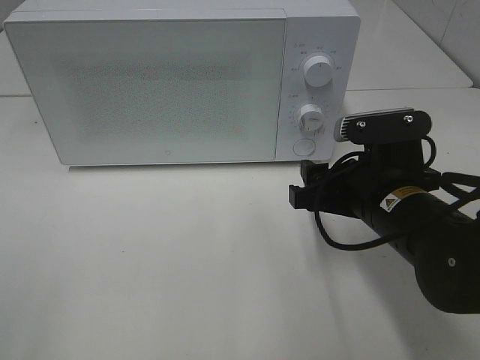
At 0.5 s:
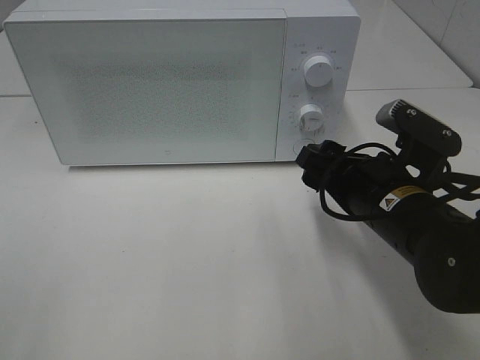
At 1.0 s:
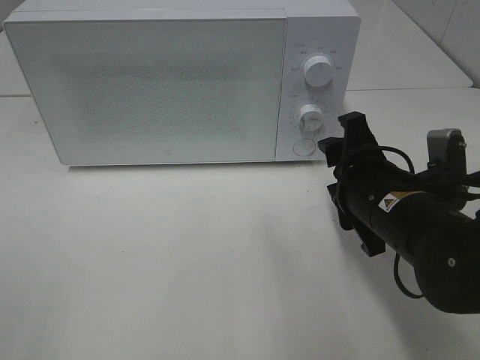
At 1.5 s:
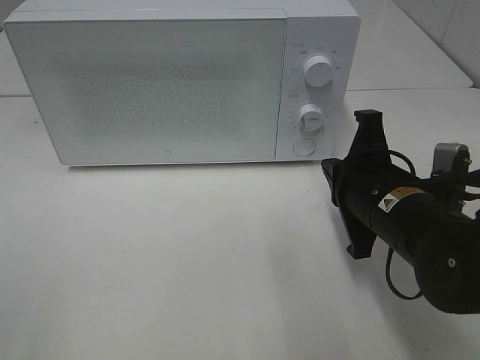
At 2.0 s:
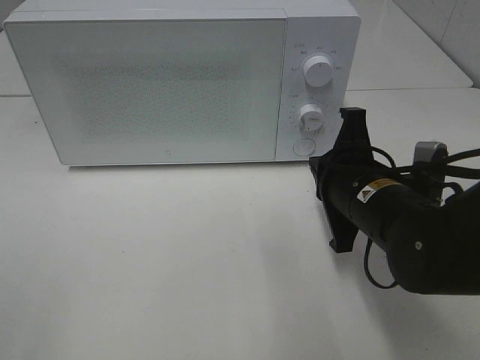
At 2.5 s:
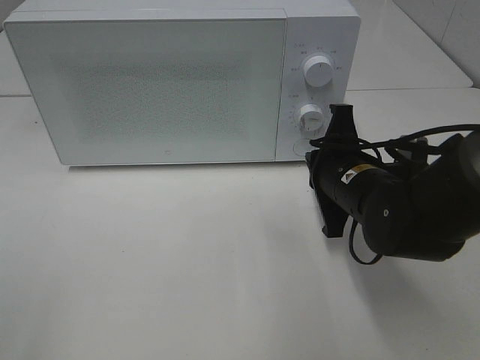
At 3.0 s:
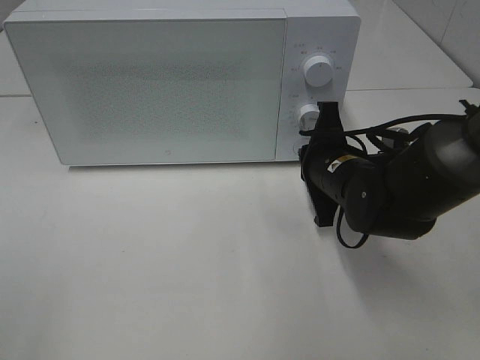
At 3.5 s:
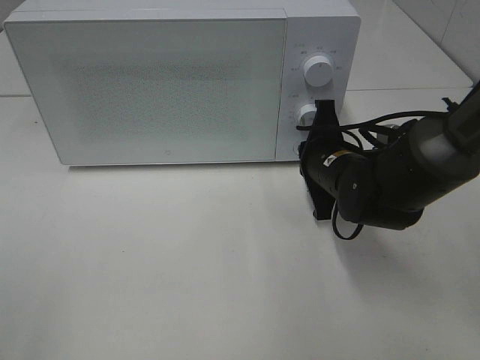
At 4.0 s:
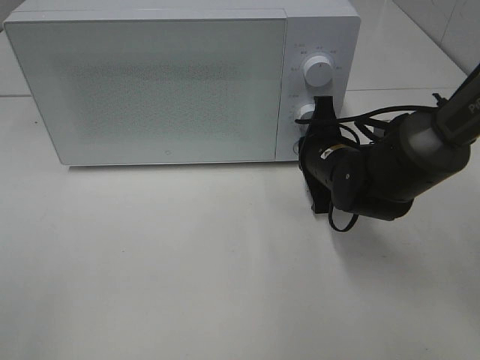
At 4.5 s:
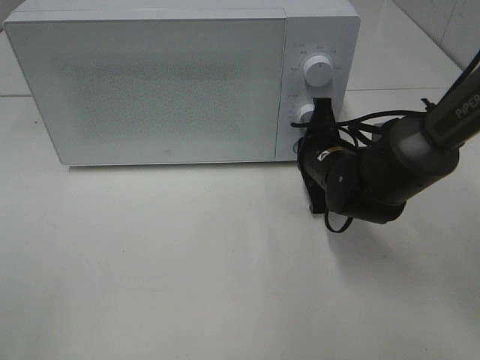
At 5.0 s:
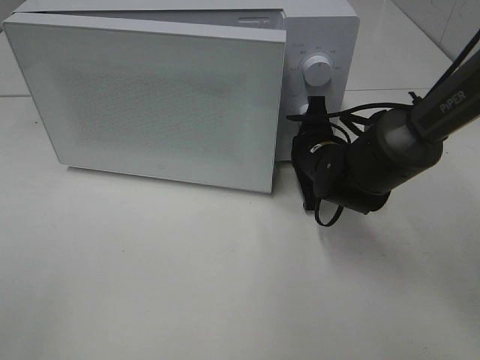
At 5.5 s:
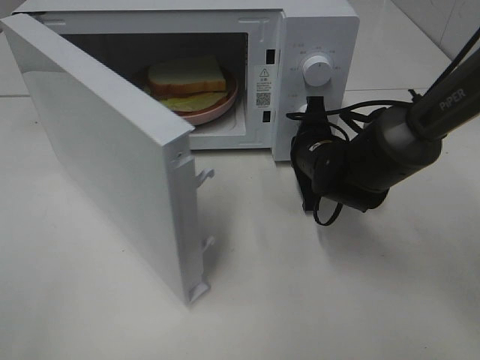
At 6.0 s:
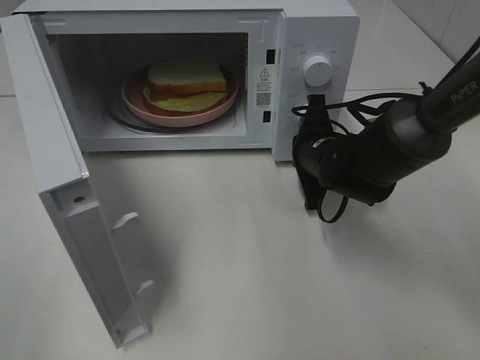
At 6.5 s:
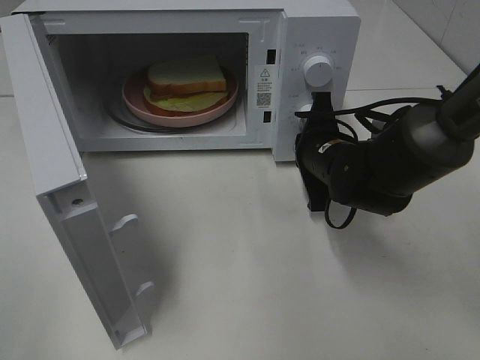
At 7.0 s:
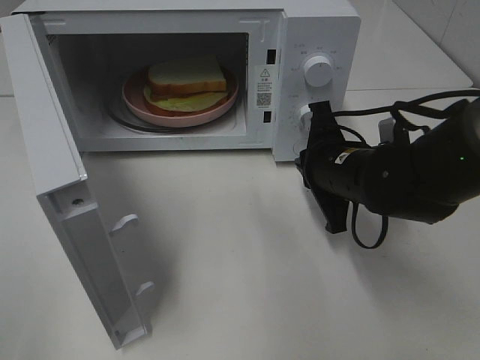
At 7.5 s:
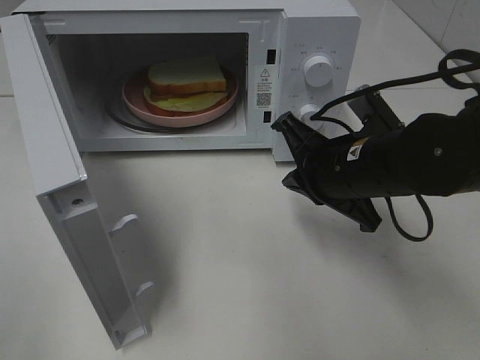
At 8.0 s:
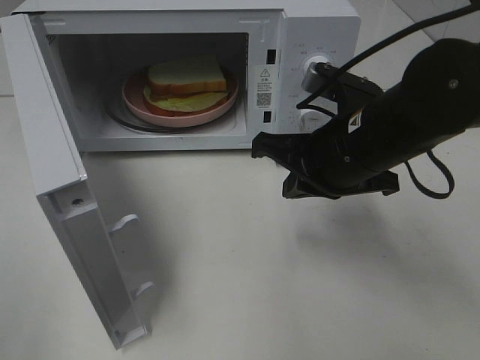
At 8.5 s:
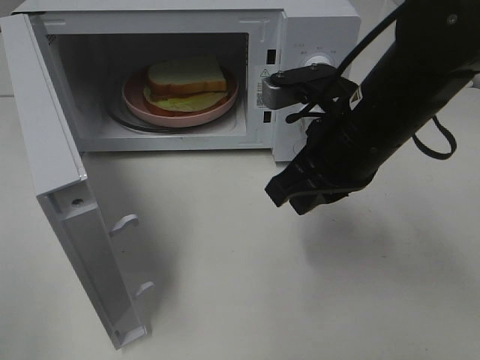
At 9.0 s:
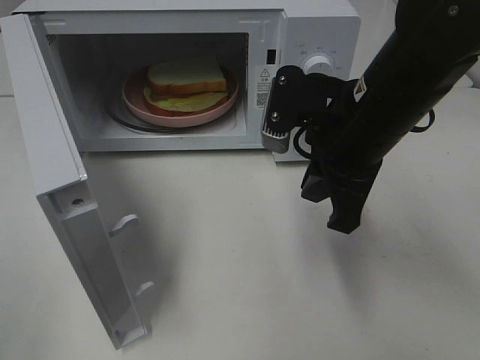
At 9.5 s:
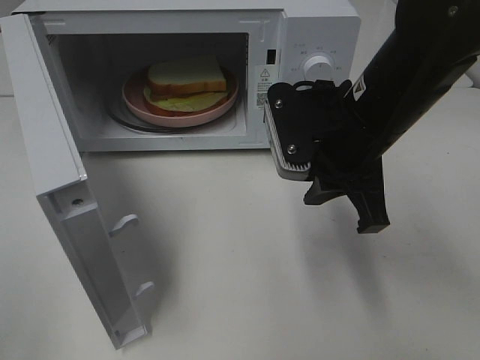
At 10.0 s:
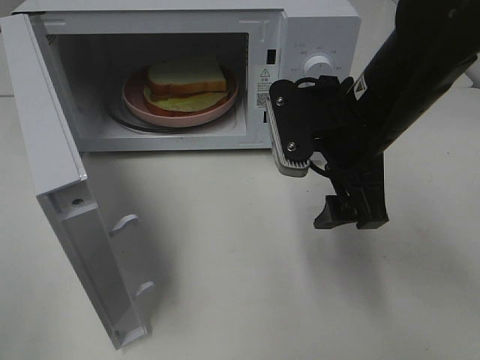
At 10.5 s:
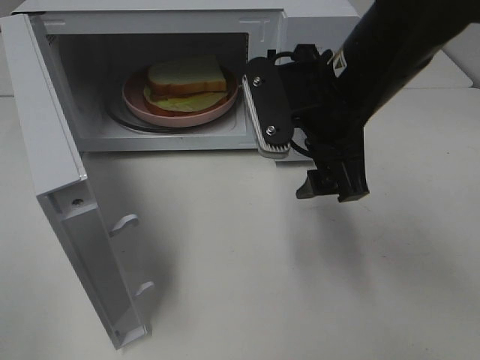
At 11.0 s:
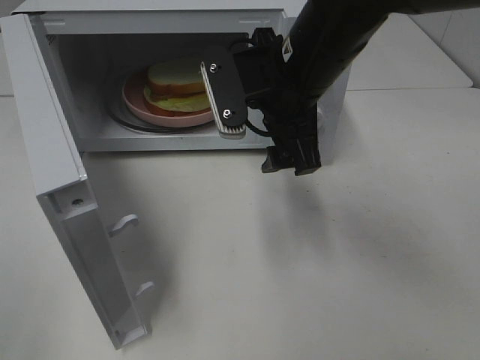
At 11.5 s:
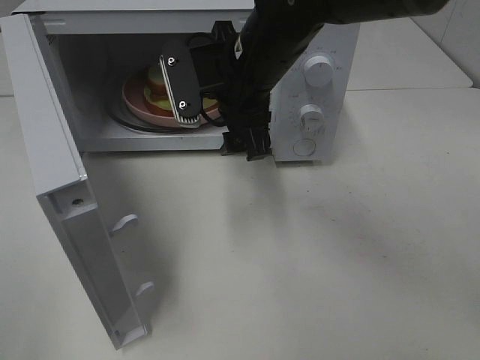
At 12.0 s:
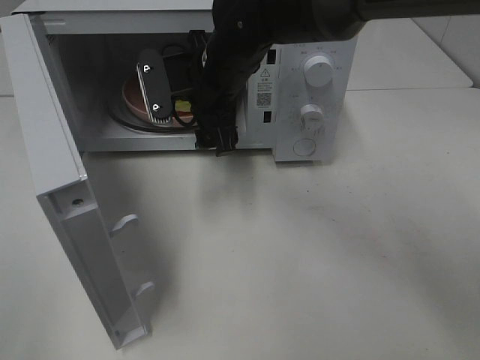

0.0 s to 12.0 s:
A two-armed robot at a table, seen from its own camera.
Task of the whole recording: Heat Sandwich.
Step, 0.0 to 6.5 s: Right hand: press the switch.
0.0 to 2.0 s: The right gripper closes its fingers.
2.0 to 4.0 s: The right gripper moves forward, roughly 10 cm.
6.0 to 8.0 s: The right gripper travels backward and upward by about 15 cm.
8.0 to 10.0 s: The right gripper opens.
10.0 to 12.0 s: The right gripper is displaced to the left and forward by some 20 cm.

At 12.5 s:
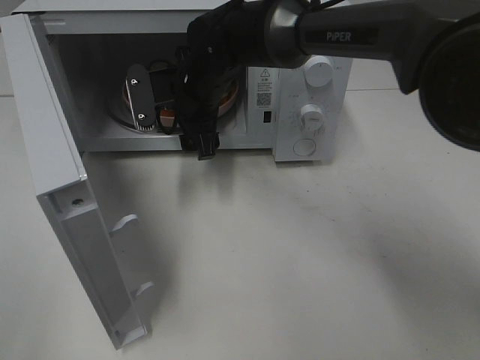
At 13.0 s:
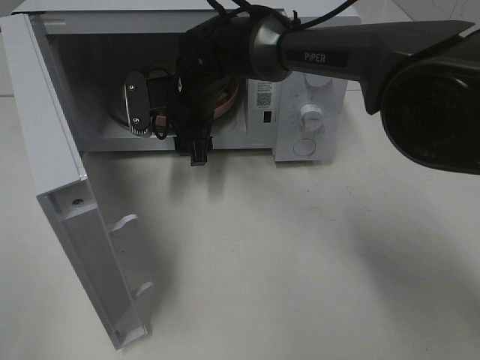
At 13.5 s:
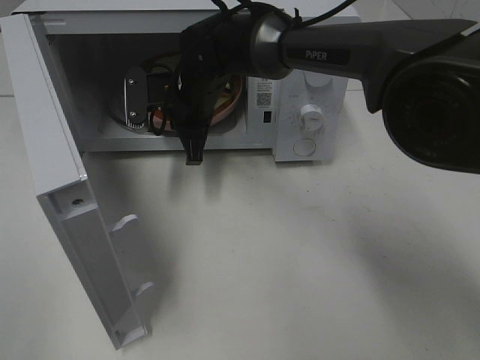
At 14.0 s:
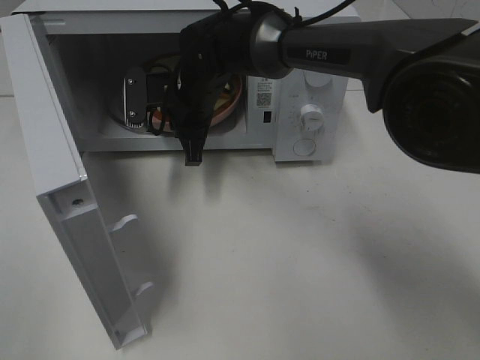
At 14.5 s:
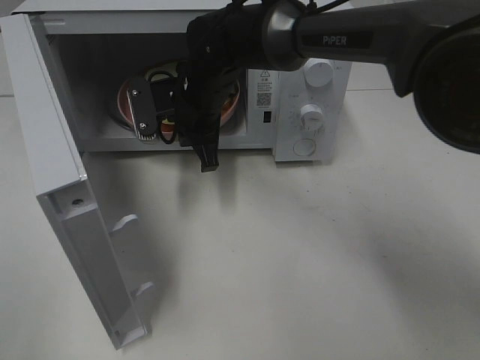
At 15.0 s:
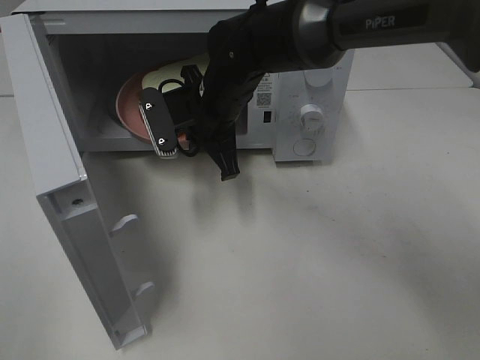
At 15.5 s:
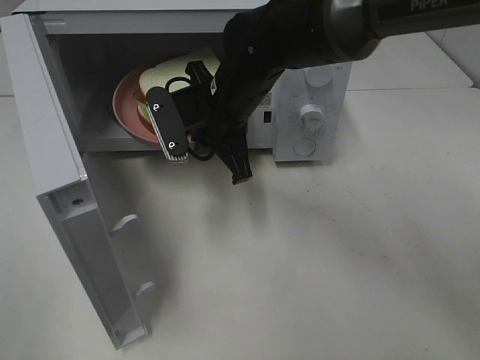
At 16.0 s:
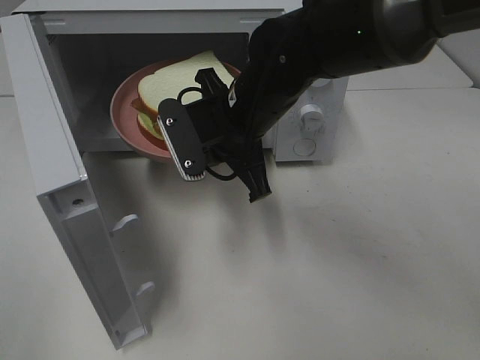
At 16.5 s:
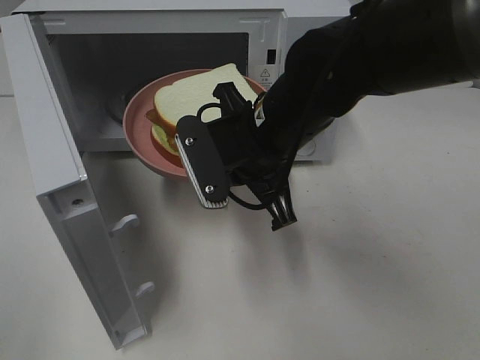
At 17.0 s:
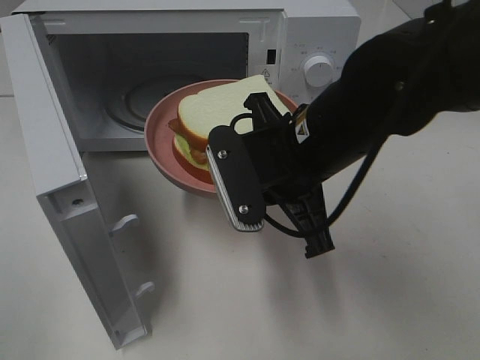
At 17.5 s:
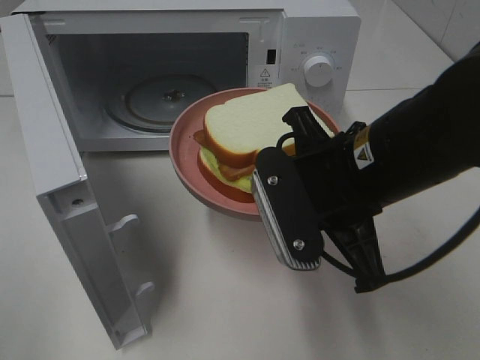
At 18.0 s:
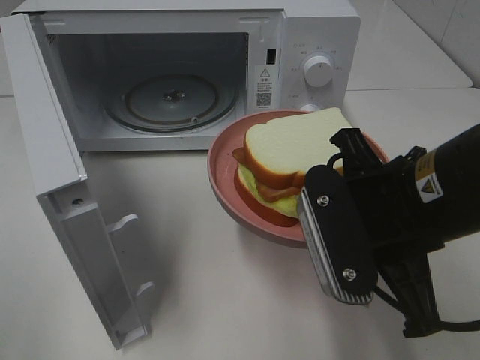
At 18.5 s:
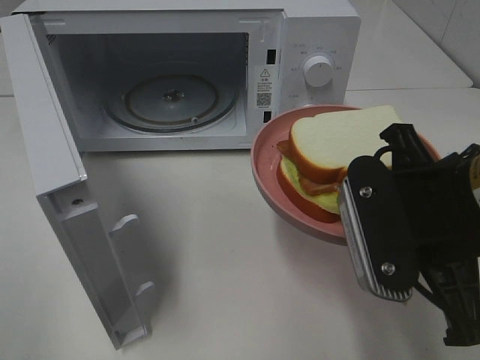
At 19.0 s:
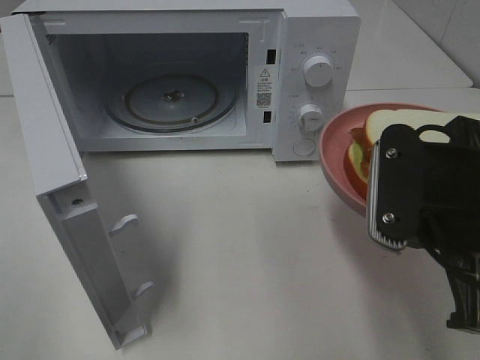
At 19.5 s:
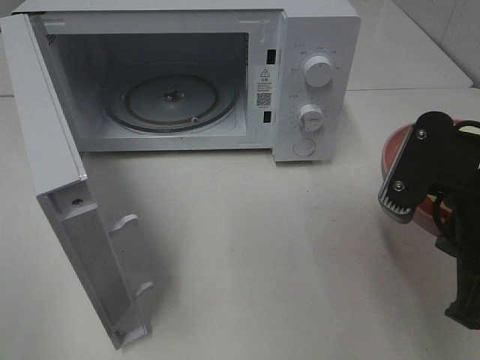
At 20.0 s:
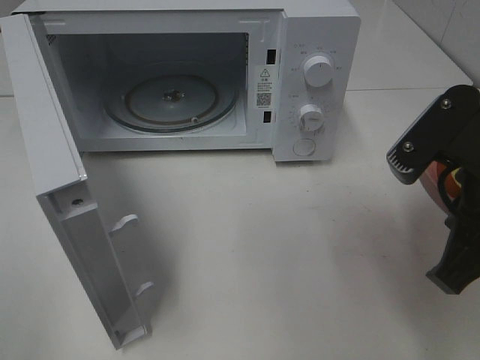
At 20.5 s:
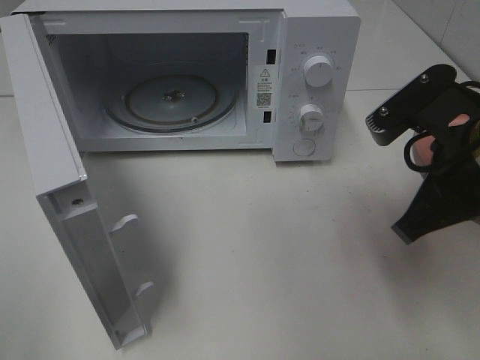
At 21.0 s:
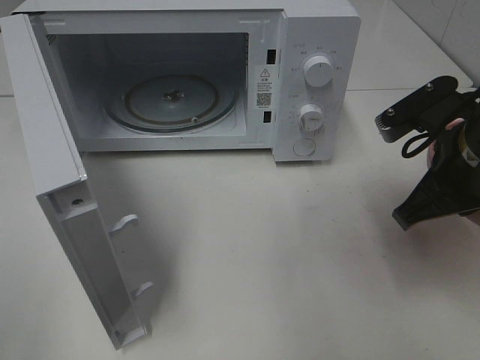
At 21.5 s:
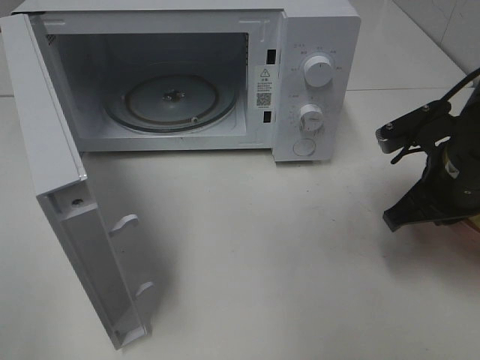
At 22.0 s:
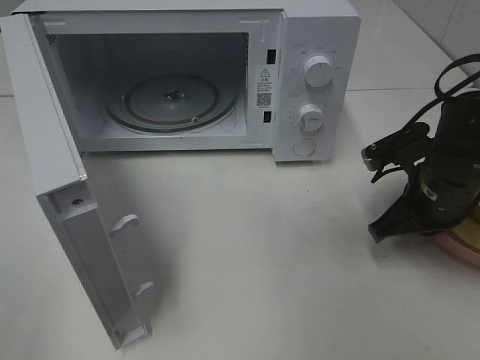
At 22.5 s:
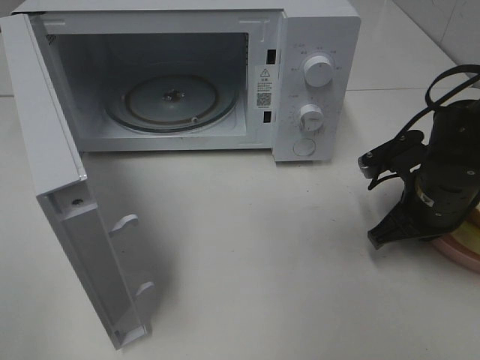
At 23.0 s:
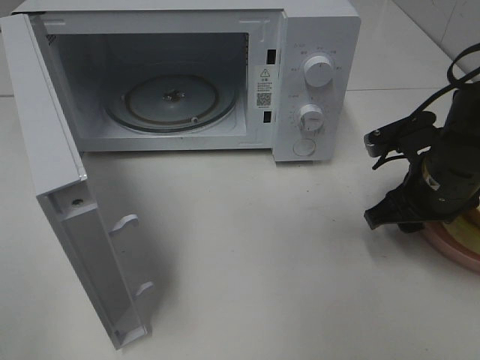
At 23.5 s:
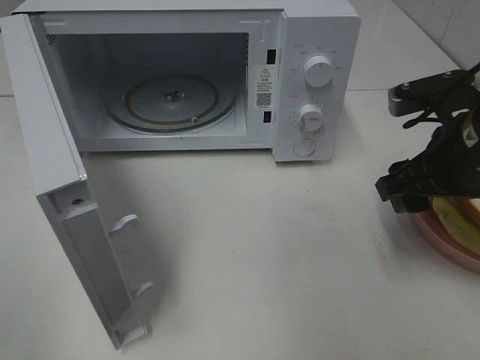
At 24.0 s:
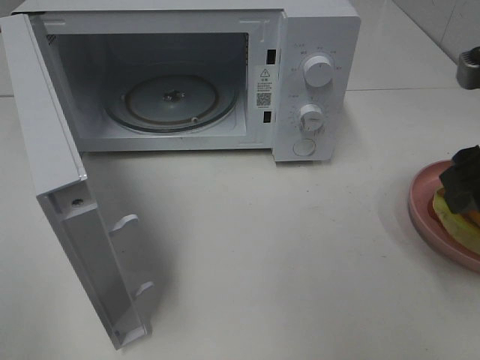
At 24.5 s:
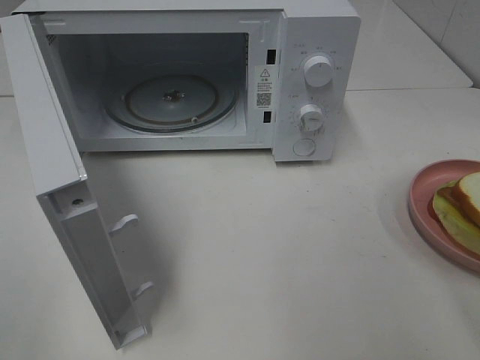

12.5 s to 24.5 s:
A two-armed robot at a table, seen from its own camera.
Task of the whole recording: Heat Sandwich.
Step, 14.0 to 23.5 s: Right hand: place the plate on the table.
12.5 to 14.5 s: The right gripper closes up.
14.5 to 16.5 s: The right gripper heads backward and to the right, covering approximately 15 cm.
16.5 to 18.5 s: The right gripper moves backward and to the right, about 15 cm.
18.5 to 20.5 s: The right gripper moves roughly 5 cm.
20.5 to 22.5 s: The right gripper travels downward and forward by roughly 15 cm.
22.5 to 24.5 s: The right gripper travels upward and backward by roughly 25 cm, and opens up.

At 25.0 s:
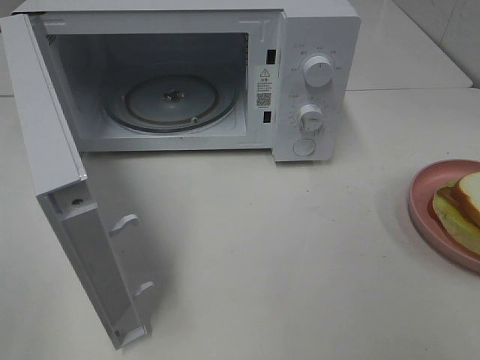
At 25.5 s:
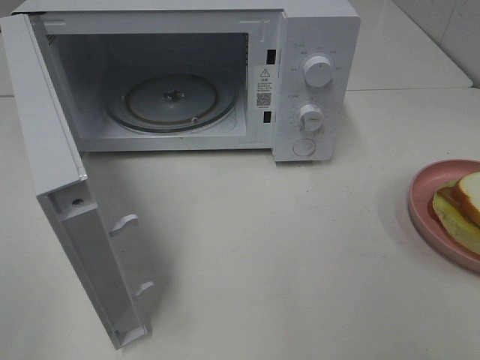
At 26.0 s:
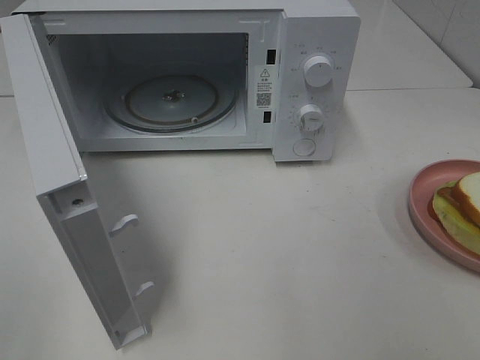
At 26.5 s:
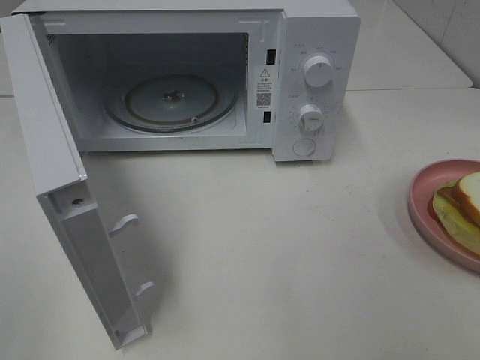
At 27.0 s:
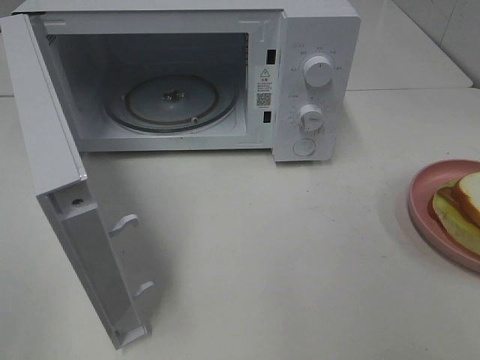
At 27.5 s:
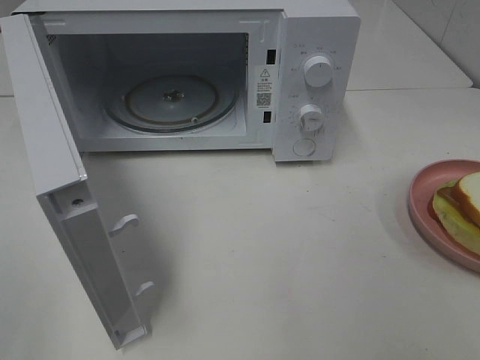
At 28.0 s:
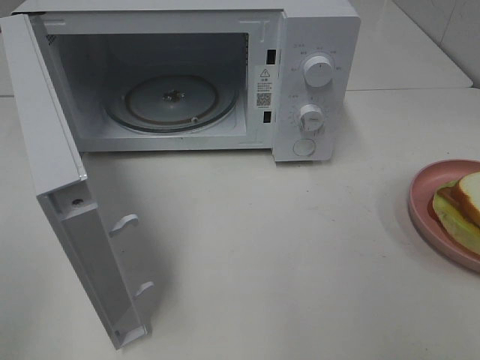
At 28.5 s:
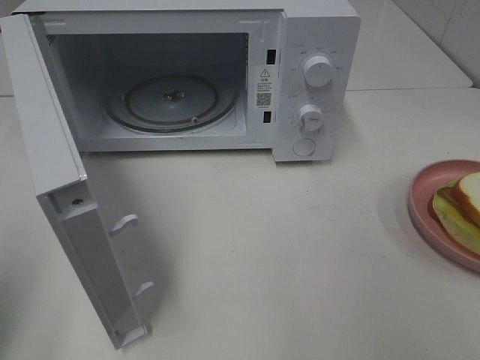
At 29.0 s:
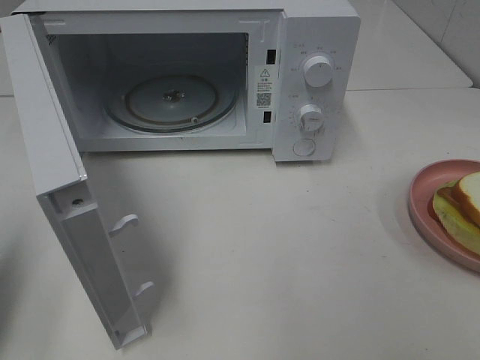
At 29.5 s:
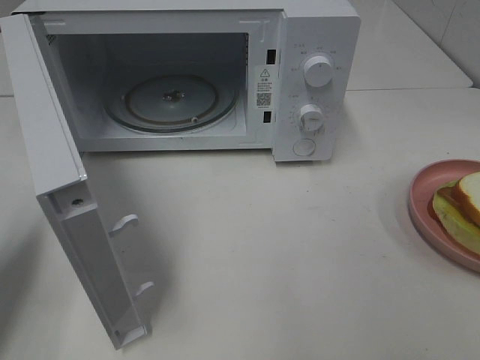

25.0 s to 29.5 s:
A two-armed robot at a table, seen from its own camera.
Task of the whole recording: Heat Sandwich.
27.0 to 29.5 s: The left gripper travels forward and downward by roughly 20 cm, and closes.
